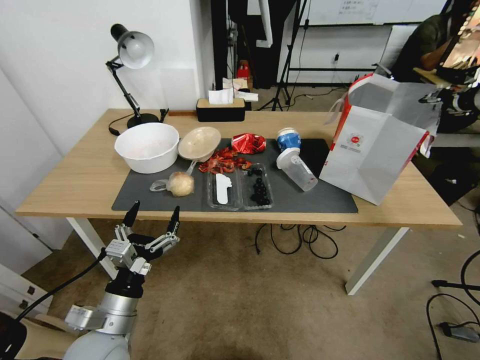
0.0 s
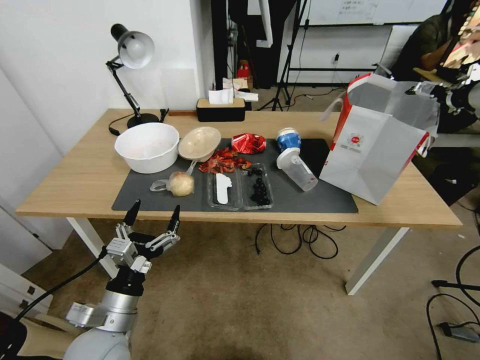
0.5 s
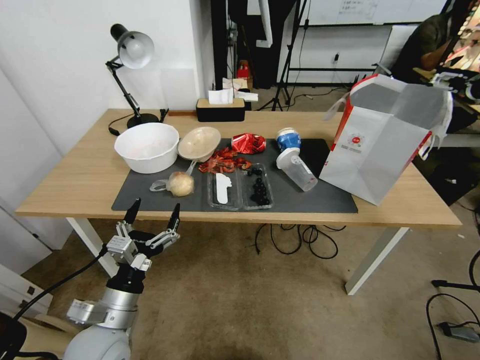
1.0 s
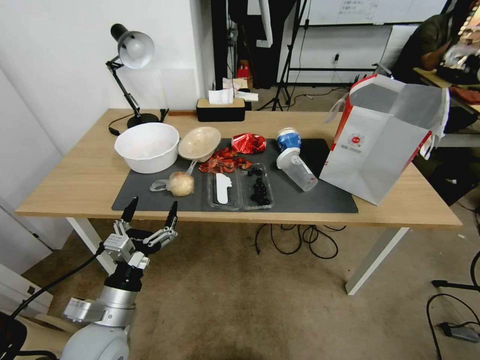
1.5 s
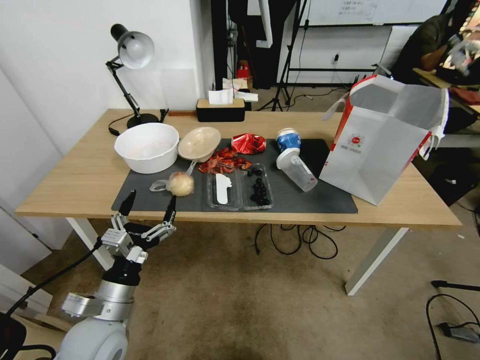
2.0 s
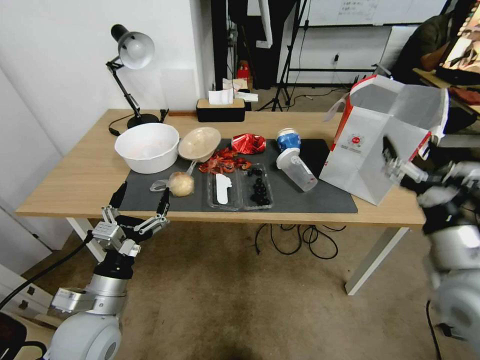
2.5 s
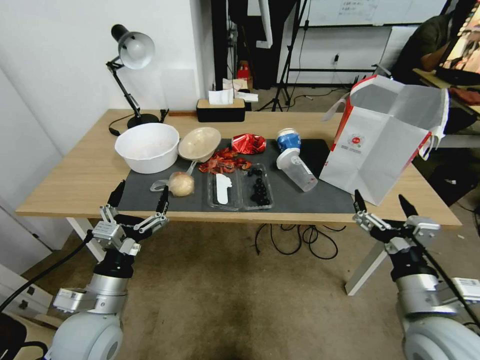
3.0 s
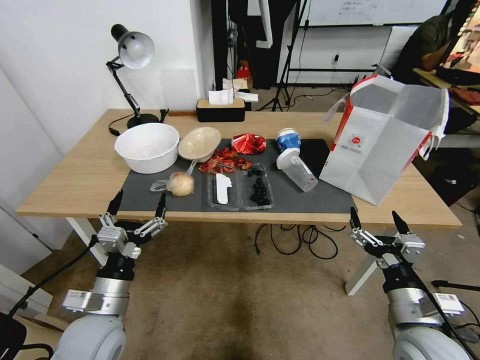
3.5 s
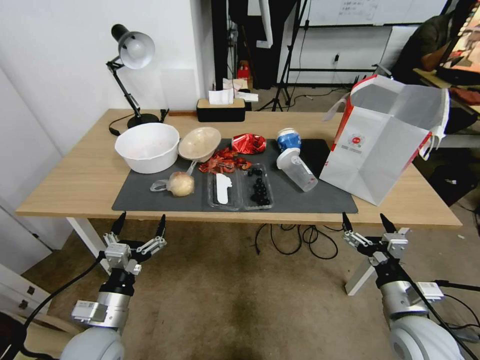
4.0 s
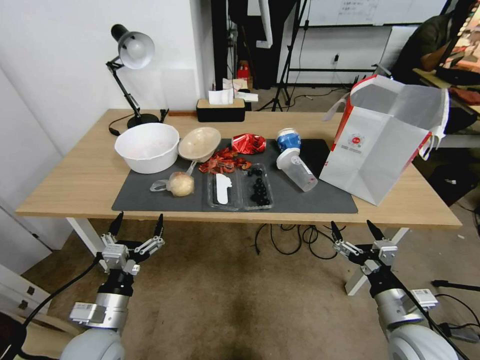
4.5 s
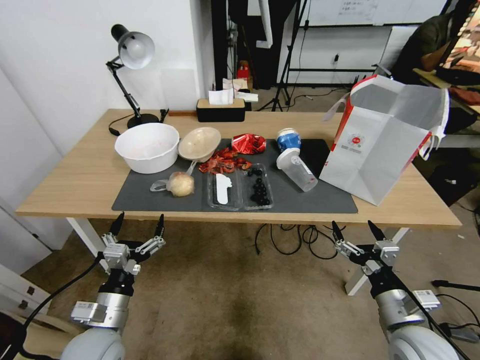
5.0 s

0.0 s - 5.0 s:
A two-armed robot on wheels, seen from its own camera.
Task of the whole recording: Pick up the food delivery bag from the floor and place it on the table.
0.0 s - 2.5 s: The right gripper shifts some 40 cm backward, downward and to the left, and opens its fingers.
2.5 s - 5.0 s: The left gripper is displaced downward by roughly 5 cm, while the right gripper moves downward, about 15 cm.
